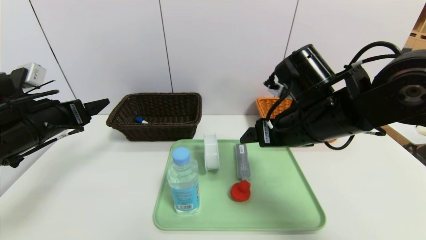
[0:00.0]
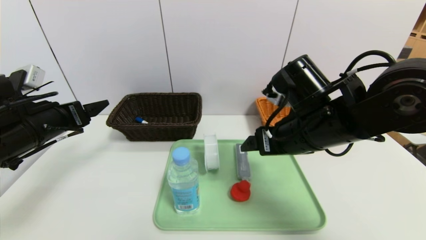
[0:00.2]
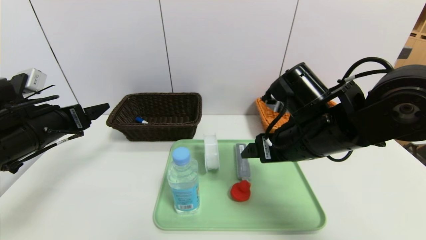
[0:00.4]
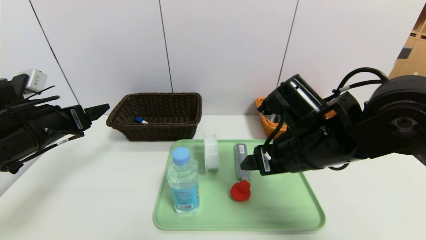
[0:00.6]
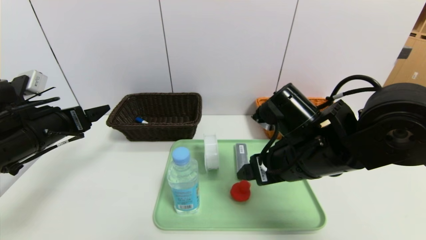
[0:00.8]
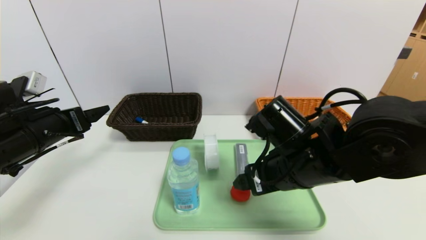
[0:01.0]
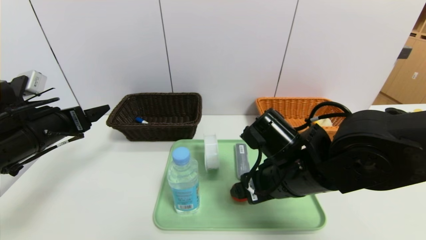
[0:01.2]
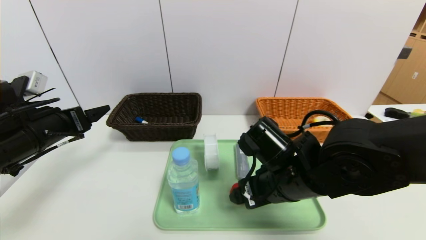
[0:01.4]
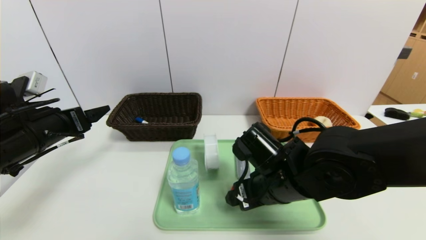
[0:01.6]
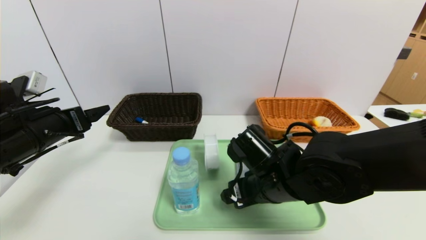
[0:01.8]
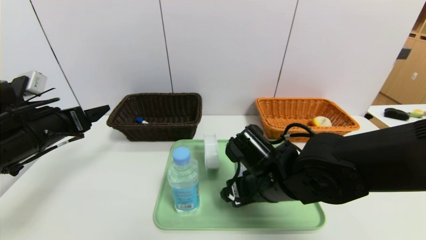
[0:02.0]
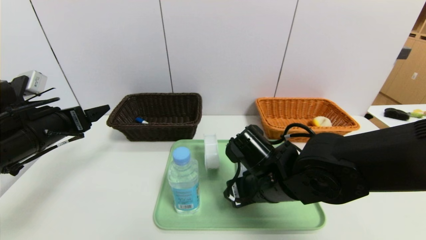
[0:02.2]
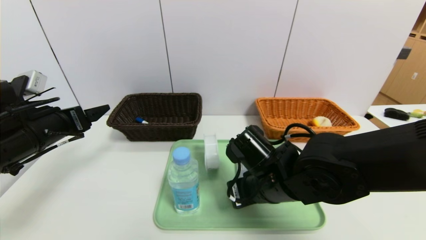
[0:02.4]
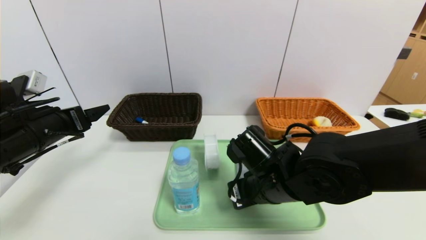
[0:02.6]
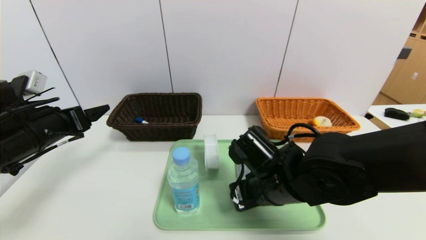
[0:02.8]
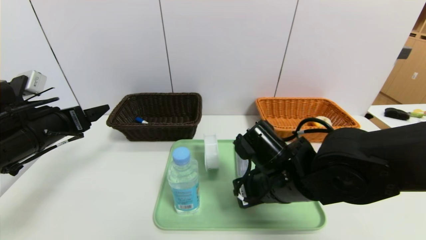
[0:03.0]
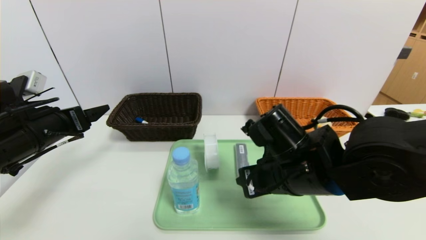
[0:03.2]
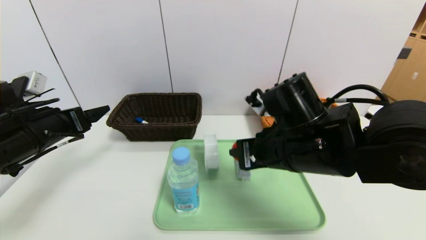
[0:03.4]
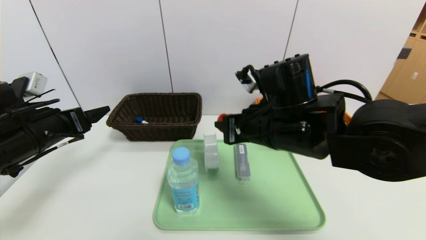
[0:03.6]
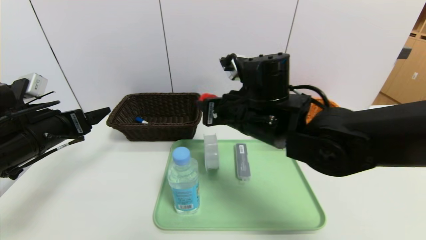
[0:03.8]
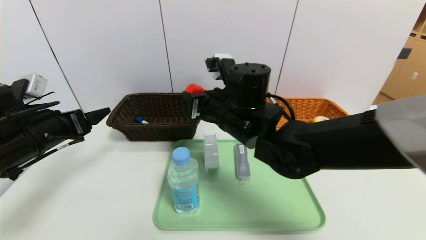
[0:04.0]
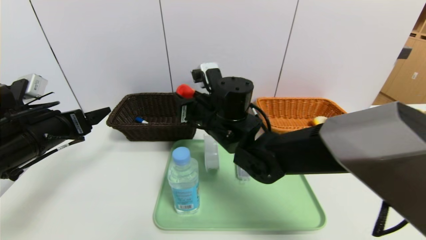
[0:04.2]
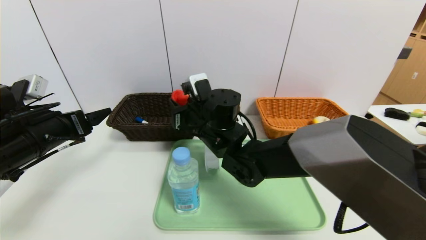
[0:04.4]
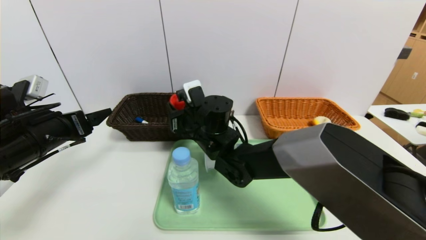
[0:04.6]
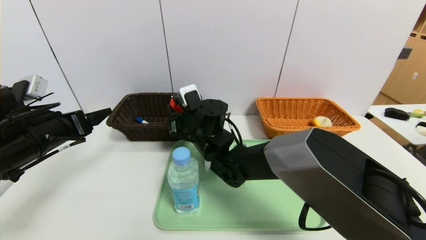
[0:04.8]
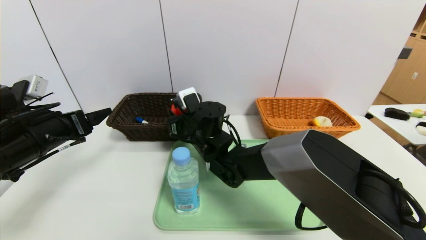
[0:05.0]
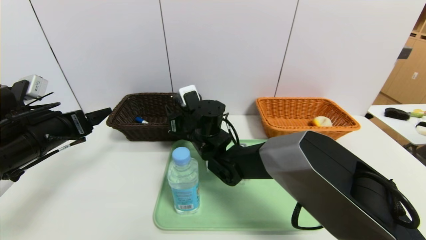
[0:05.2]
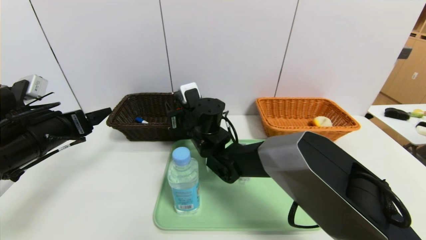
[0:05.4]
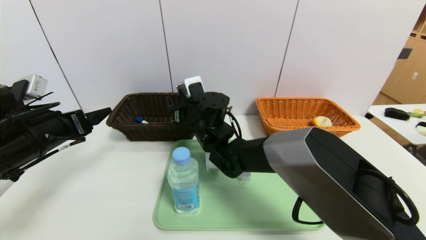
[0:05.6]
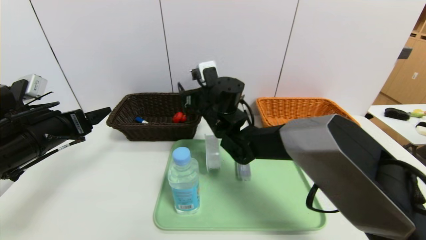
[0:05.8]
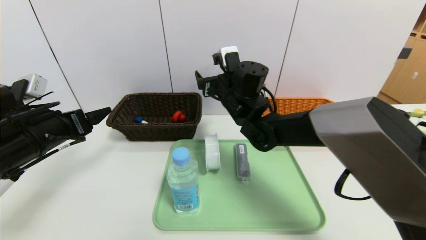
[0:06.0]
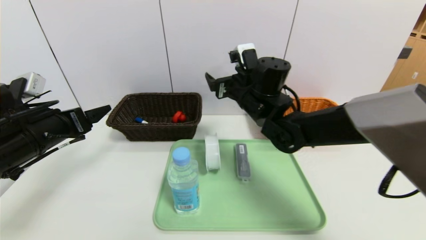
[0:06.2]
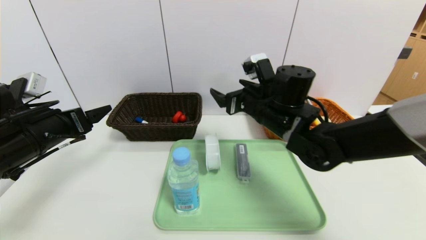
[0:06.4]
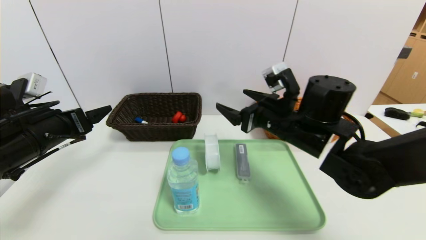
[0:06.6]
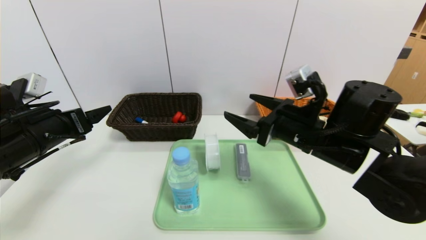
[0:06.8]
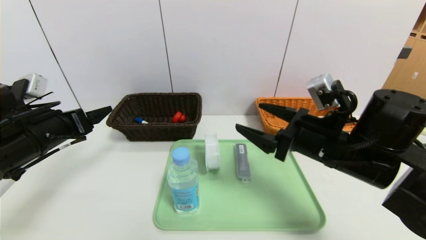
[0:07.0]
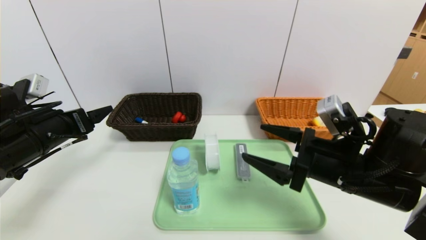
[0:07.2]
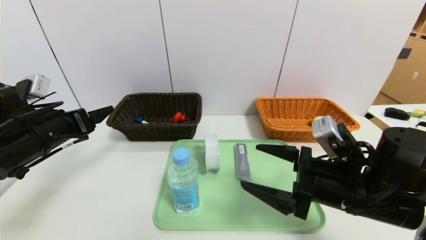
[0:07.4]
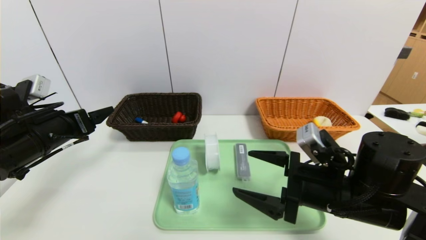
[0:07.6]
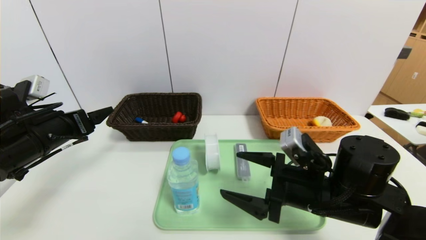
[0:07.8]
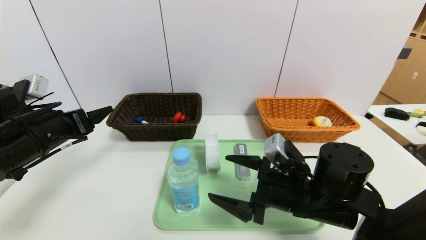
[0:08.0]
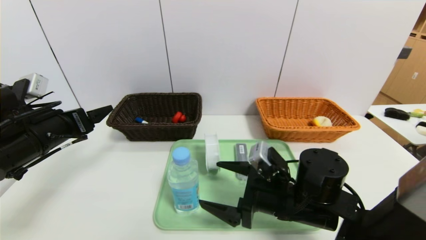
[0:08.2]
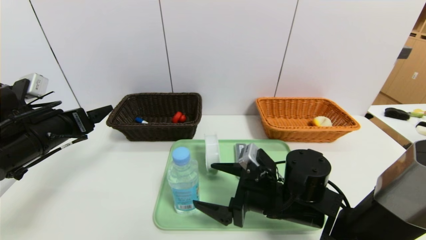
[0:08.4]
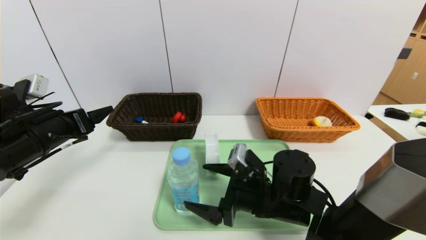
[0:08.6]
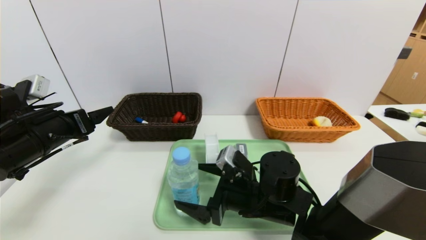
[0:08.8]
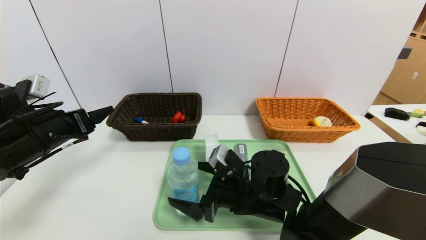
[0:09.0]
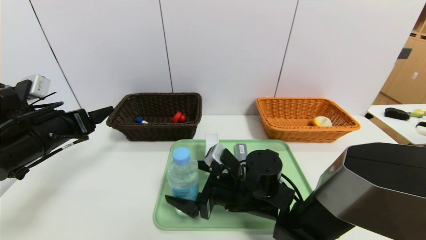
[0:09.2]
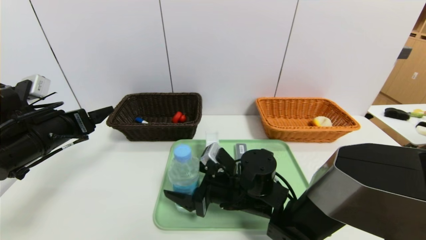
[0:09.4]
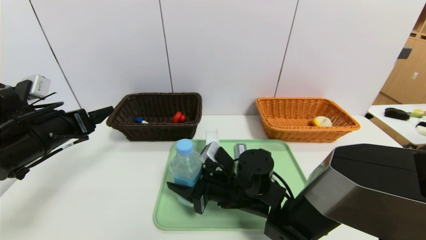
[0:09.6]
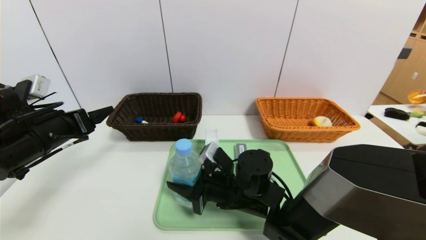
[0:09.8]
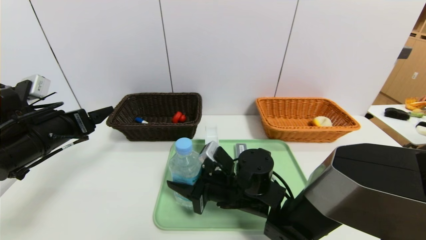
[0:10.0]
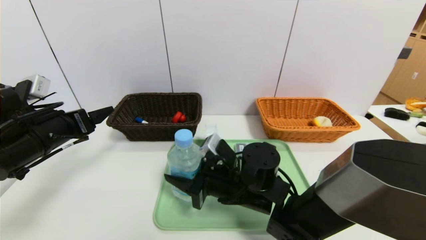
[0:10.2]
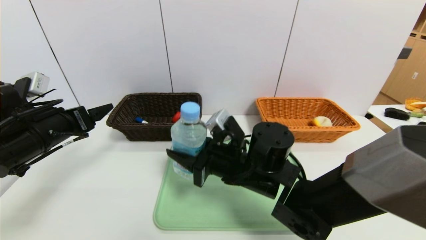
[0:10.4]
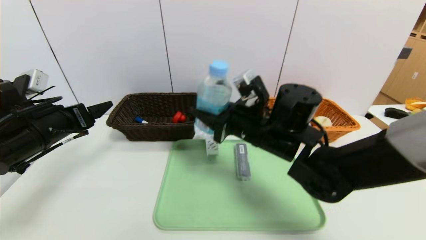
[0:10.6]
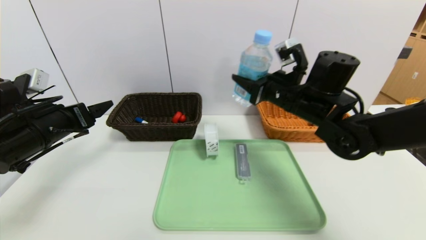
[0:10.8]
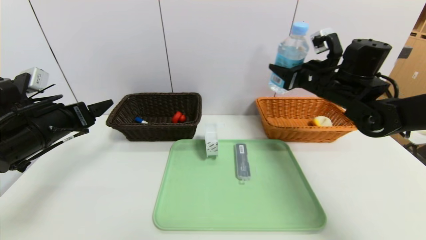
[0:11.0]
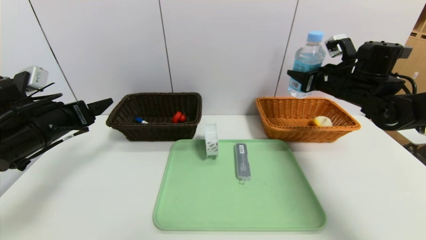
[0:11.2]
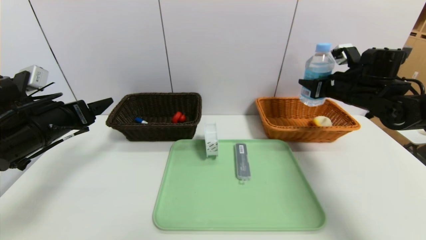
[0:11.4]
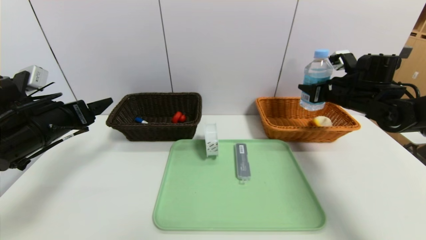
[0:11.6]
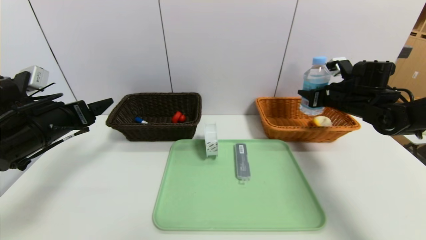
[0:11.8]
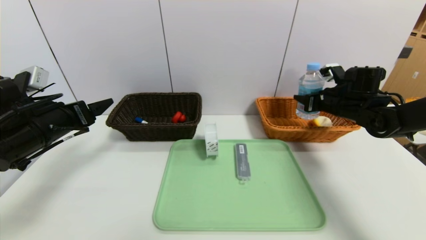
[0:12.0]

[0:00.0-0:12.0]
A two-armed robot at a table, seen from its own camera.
Task of the whole recording: place the food in the right basket with the right gripper, and place the non food items in the left basket with the left gripper.
0:00.0 to 0:01.6: The right gripper heads downward, covering roughly 10 cm.
0:01.6 to 0:03.0: The right gripper closes.
0:03.0 to 0:04.4: The right gripper moves to the left and forward, about 15 cm.
0:04.4 to 0:06.0: The right gripper travels to the right and forward by some 10 cm, and opens its fingers.
0:06.0 to 0:07.6: The right gripper shifts roughly 25 cm backward and to the right.
0:07.6 to 0:09.0: The right gripper is displaced to the left and downward by about 15 cm.
0:09.0 to 0:10.4: The right gripper is displaced upward by roughly 5 cm, and closes up.
0:10.4 to 0:12.0: The right gripper goes approximately 30 cm to the right and forward.

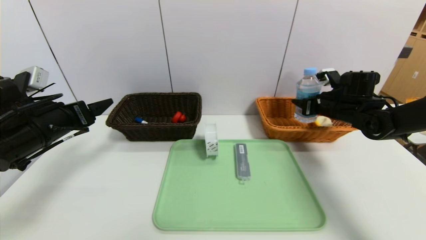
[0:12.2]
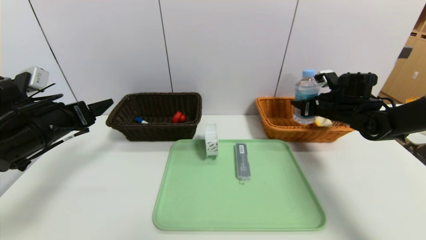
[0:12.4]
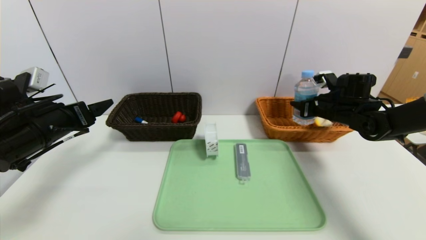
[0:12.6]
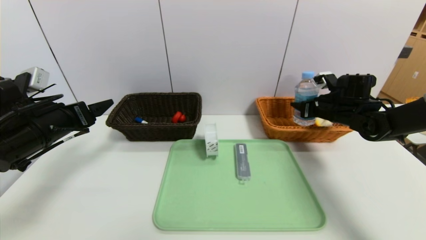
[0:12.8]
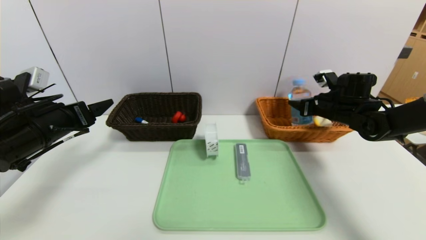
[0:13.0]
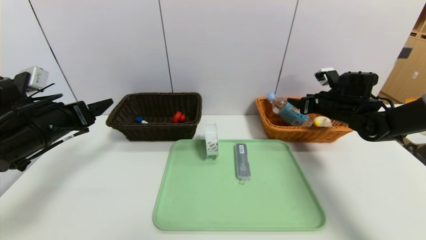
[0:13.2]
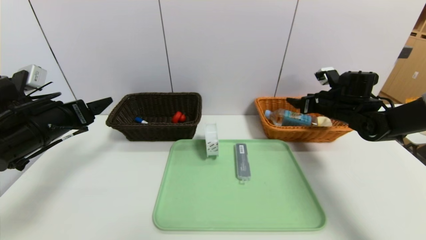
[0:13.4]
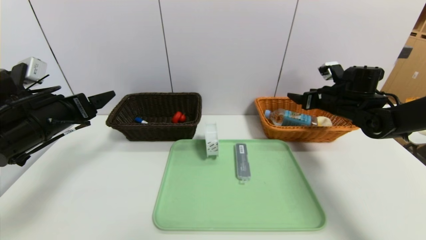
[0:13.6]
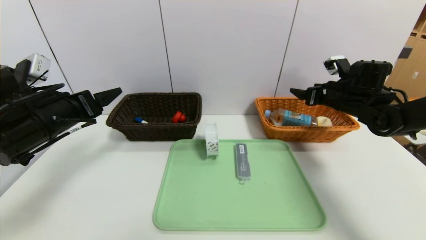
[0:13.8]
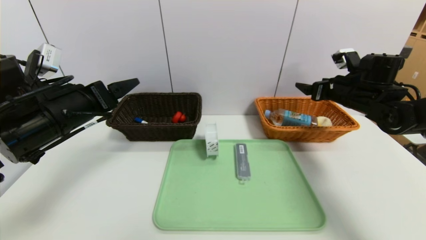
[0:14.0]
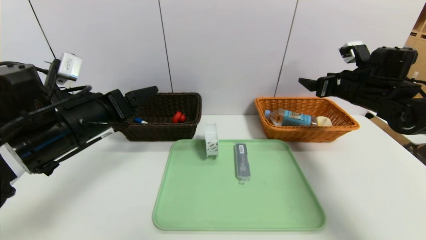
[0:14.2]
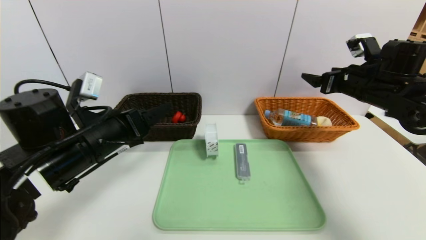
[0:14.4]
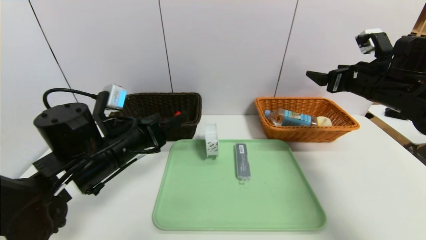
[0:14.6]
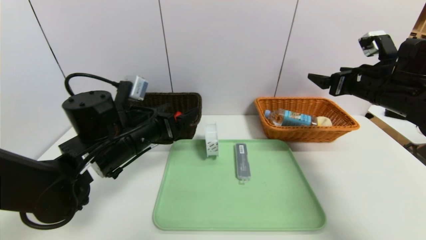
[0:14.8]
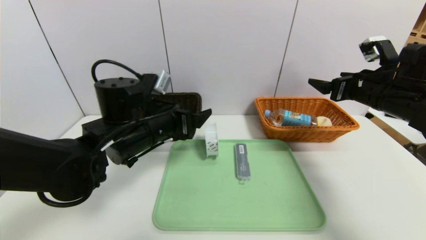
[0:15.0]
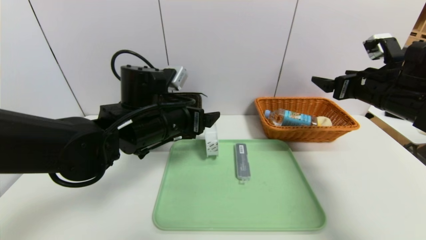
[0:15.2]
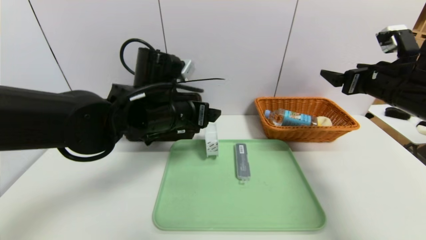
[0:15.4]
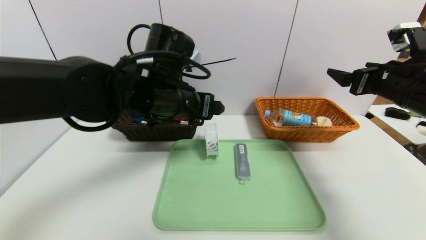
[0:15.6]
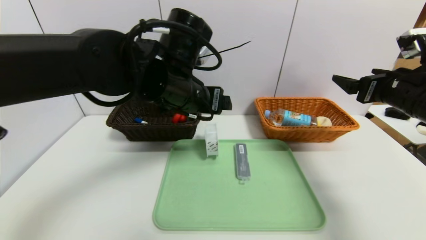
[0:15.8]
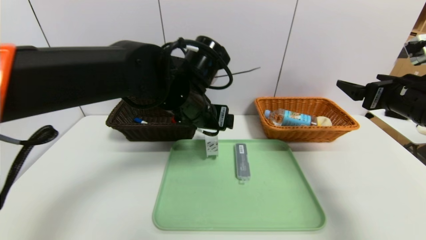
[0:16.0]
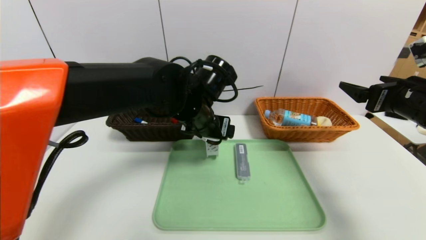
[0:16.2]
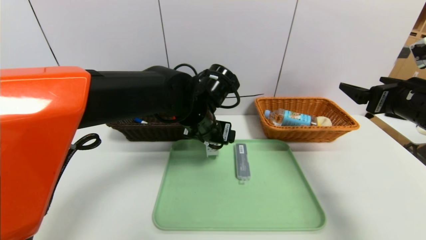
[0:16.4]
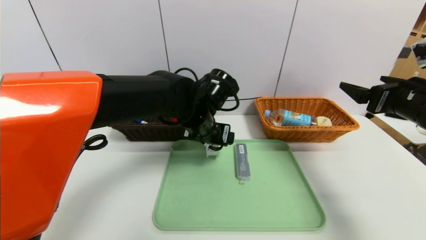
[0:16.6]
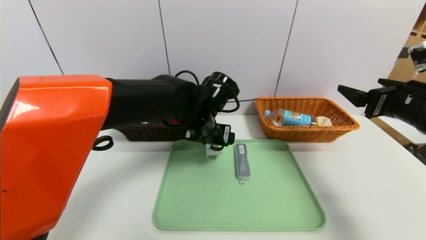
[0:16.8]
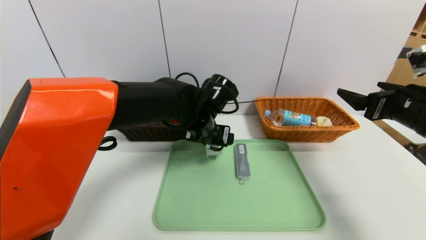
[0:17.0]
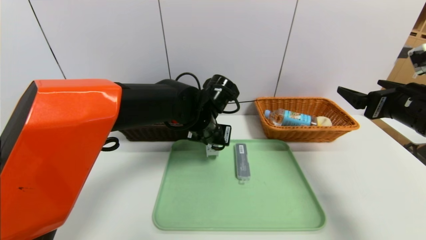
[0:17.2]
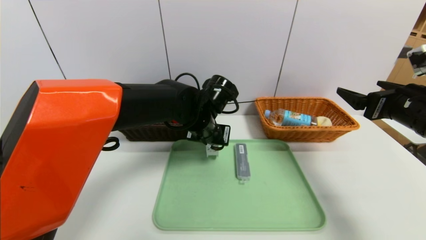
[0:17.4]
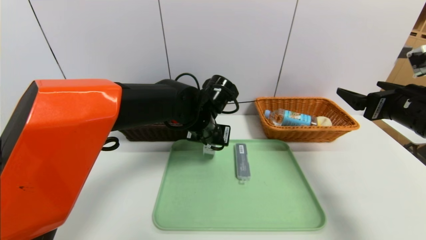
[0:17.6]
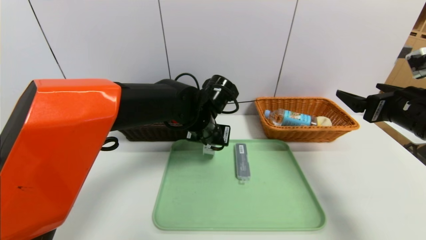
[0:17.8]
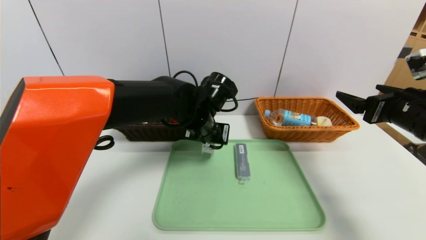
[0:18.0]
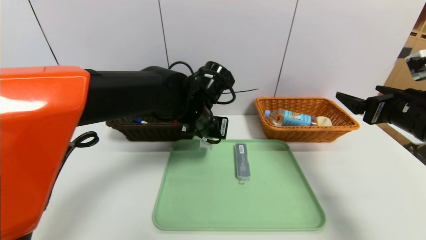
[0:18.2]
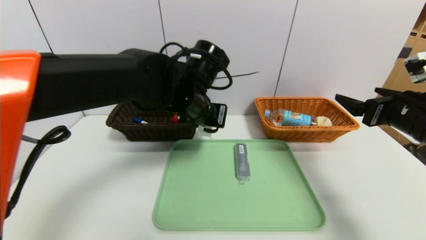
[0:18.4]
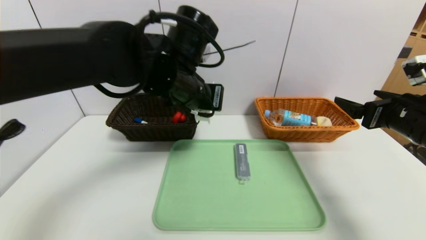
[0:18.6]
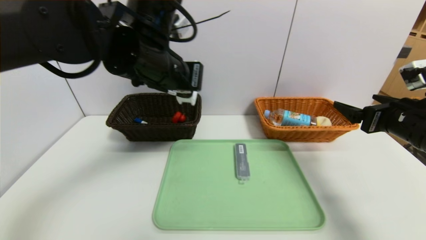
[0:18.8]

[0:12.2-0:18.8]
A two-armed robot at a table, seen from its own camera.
Task of the whole recording: place the food in the right basket with the right gripper, and place the non food items in the left basket with the left gripper.
0:12.2 to 0:13.8: The right gripper opens.
0:13.8 to 0:15.4: The right gripper is displaced backward and upward by some 10 cm; the left gripper moves to the right, some 20 cm.
0:15.4 to 0:17.2: The left gripper goes roughly 10 cm to the right, downward and forward, and closes; the right gripper moves backward, about 5 cm.
0:17.2 to 0:18.8: The left gripper moves upward and to the left, some 15 cm, and closes up.
